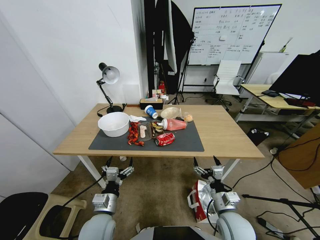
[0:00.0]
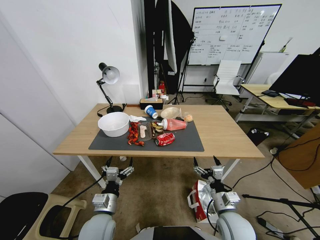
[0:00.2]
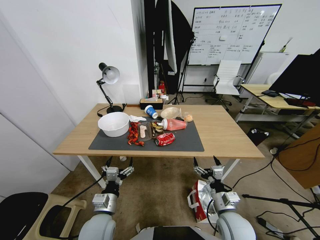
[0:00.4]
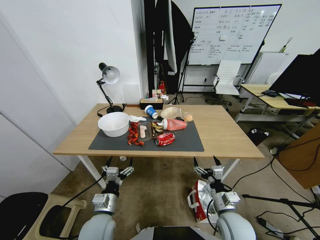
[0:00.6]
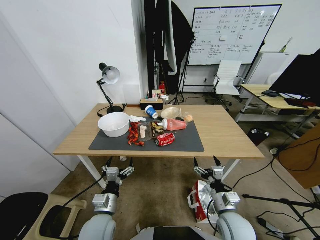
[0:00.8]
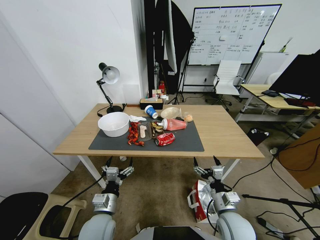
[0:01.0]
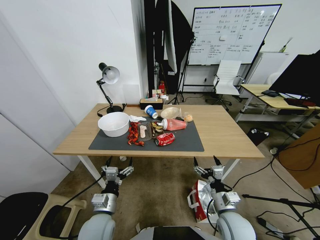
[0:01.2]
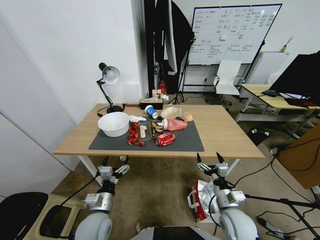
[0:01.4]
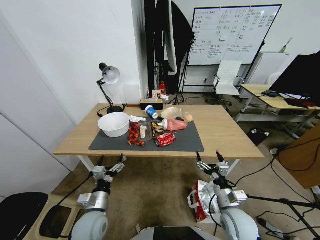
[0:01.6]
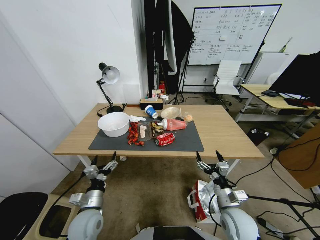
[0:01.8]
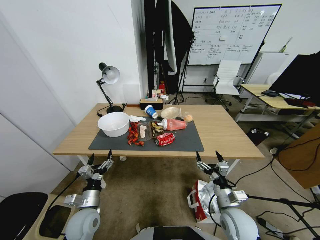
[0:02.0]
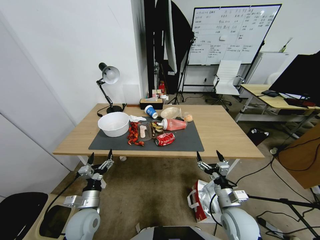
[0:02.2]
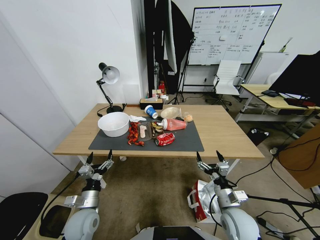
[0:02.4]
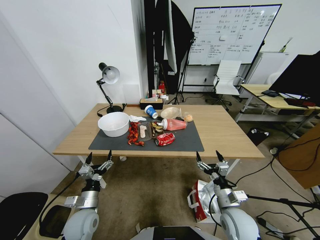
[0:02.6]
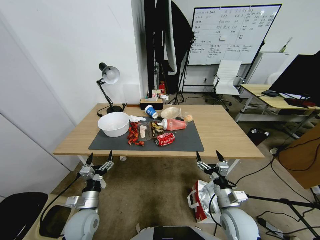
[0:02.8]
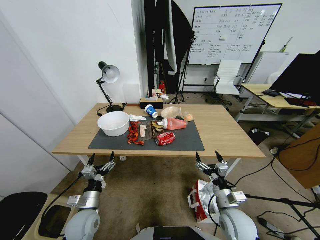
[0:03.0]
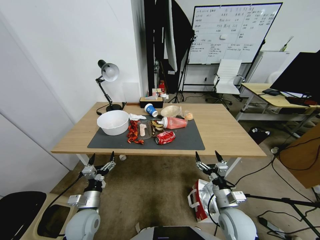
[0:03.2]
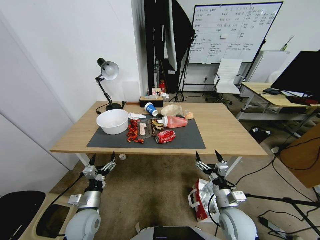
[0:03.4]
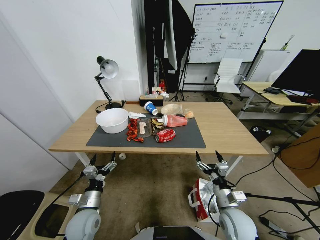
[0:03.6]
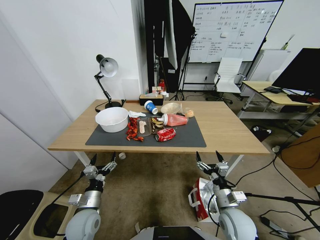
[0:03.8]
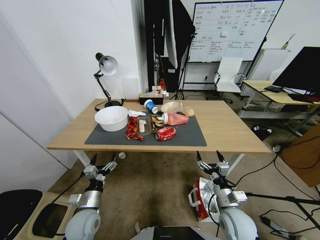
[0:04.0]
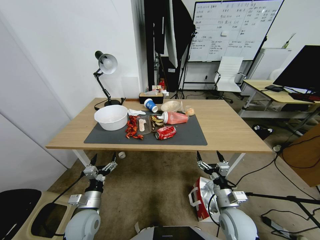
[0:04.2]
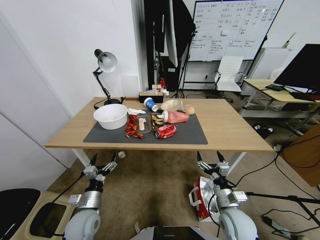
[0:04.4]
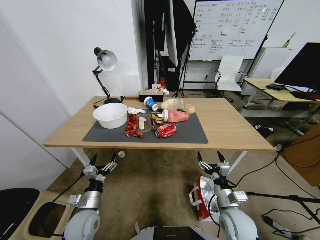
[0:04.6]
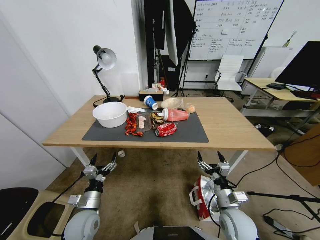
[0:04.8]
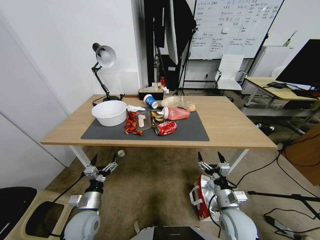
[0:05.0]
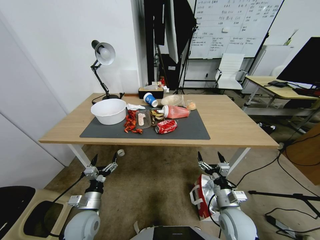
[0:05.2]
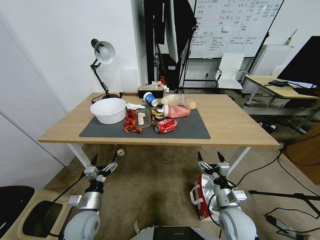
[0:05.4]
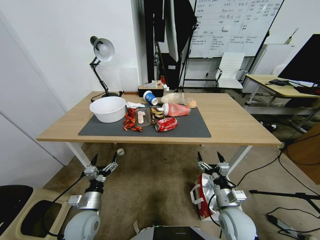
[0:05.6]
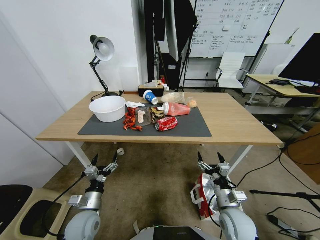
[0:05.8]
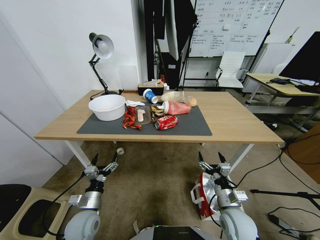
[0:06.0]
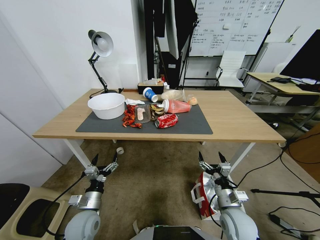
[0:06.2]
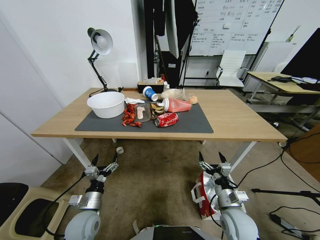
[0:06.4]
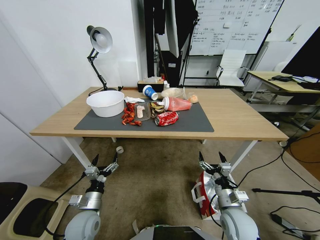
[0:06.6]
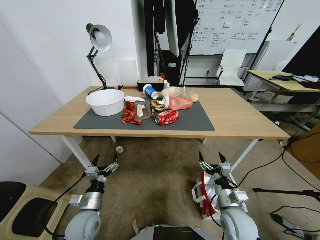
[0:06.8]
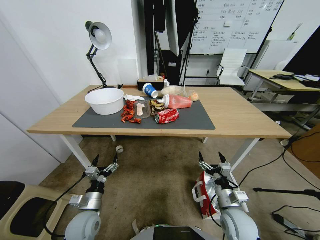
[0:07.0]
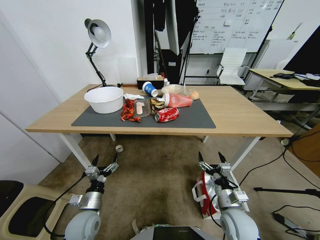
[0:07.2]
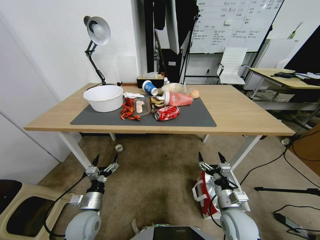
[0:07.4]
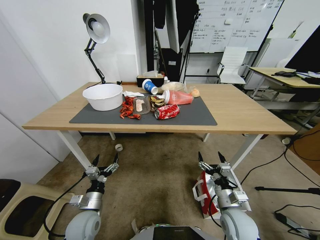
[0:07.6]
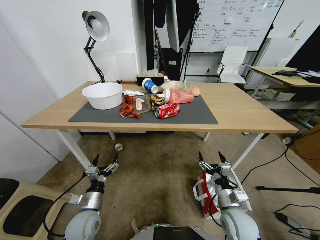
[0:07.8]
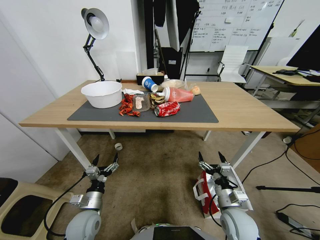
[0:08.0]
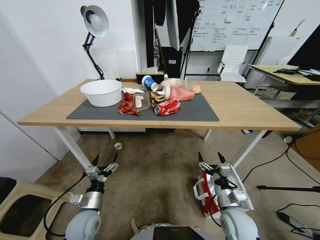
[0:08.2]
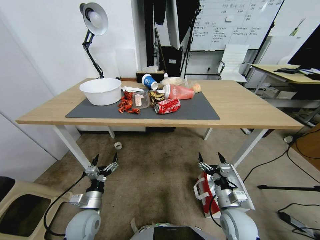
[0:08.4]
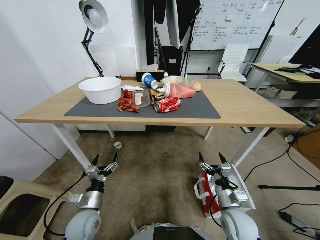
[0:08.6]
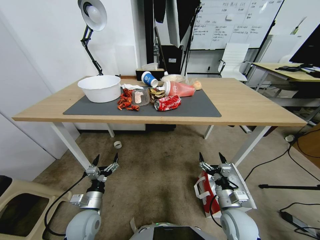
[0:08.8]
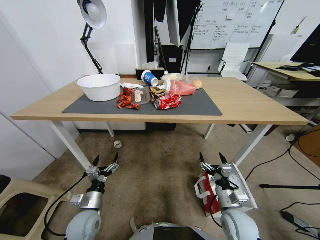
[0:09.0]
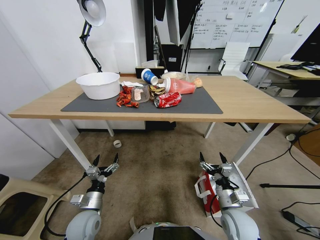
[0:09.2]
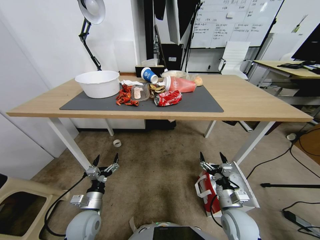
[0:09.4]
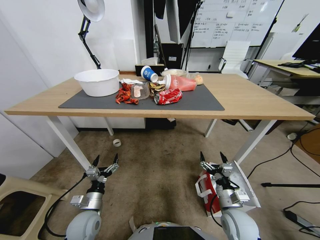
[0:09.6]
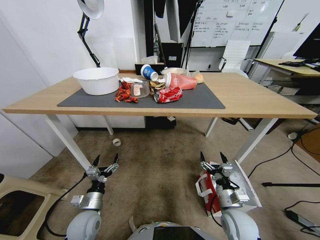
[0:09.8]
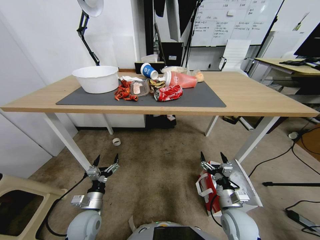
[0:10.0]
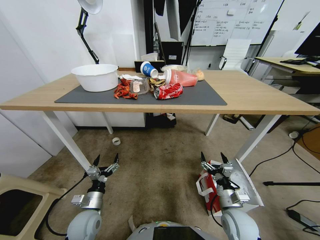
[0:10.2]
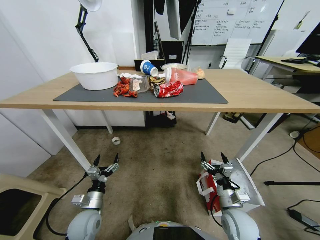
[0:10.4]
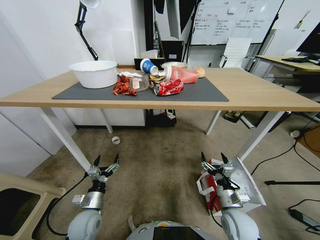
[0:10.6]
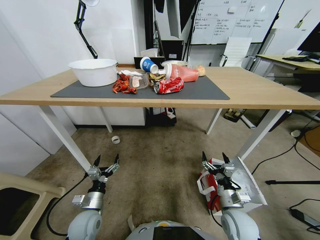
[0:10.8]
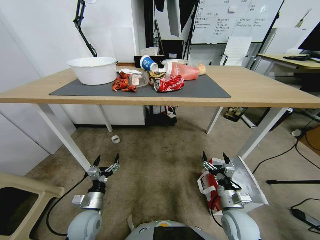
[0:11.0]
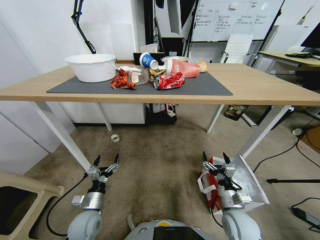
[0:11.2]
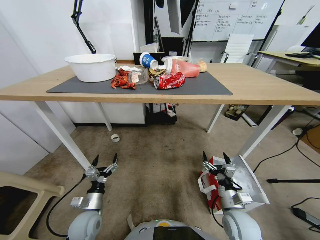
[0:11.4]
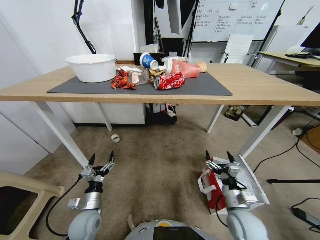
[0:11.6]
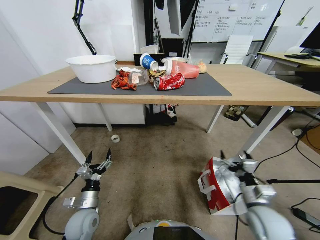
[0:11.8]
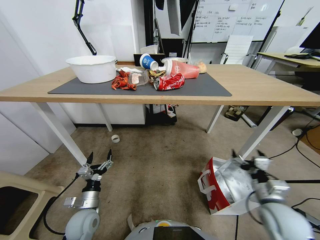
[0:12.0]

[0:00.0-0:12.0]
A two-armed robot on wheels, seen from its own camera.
Task of the whole recording: Pick up the food delivery bag from the floor and place it on the table.
0:01.6 to 0:03.0: The grippers move only a little.
0:10.4 to 0:12.0: The right gripper heads to the right and upward, covering some 15 cm.

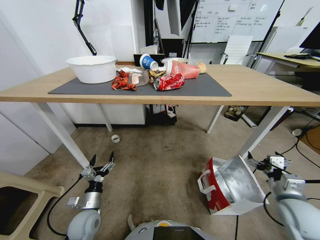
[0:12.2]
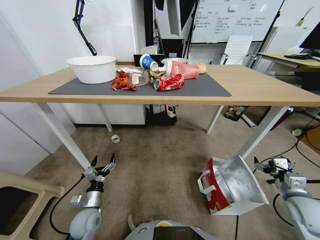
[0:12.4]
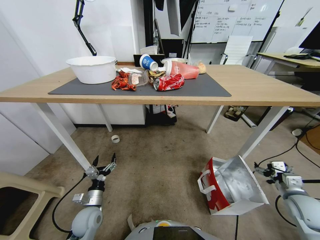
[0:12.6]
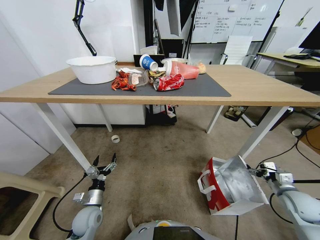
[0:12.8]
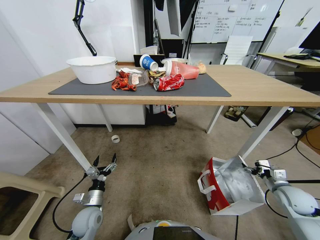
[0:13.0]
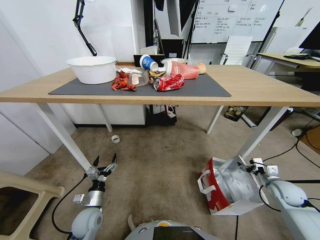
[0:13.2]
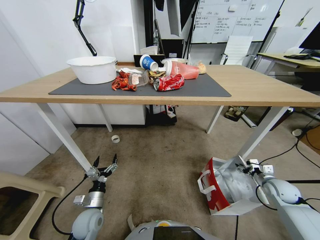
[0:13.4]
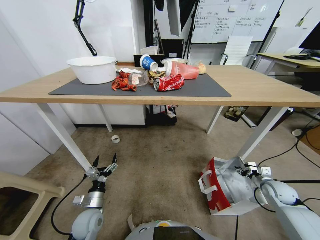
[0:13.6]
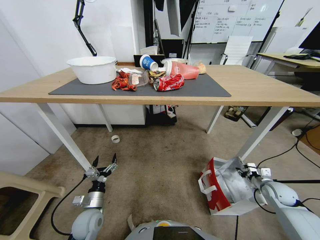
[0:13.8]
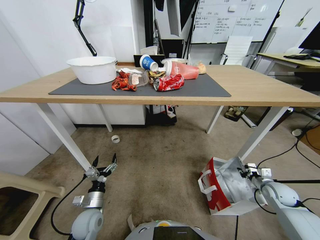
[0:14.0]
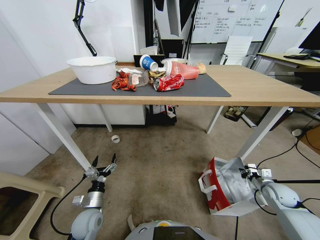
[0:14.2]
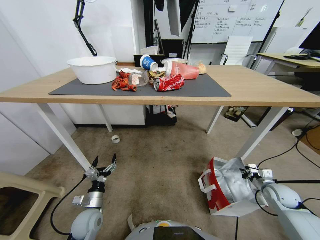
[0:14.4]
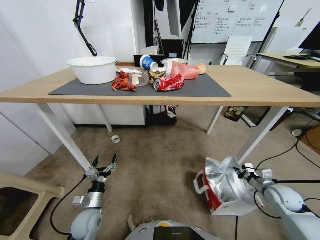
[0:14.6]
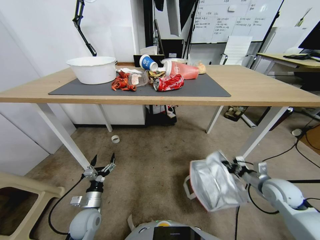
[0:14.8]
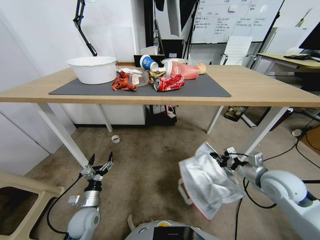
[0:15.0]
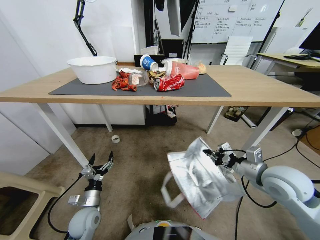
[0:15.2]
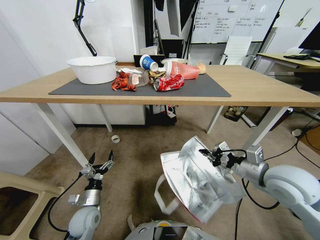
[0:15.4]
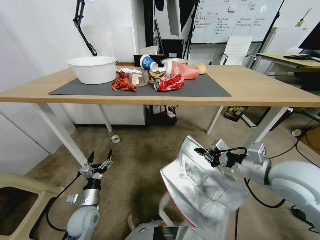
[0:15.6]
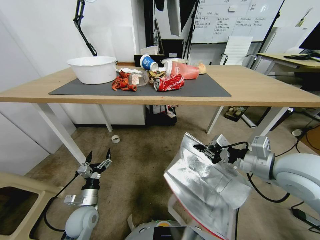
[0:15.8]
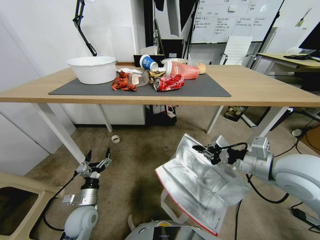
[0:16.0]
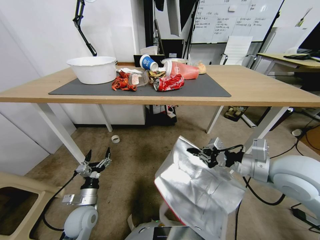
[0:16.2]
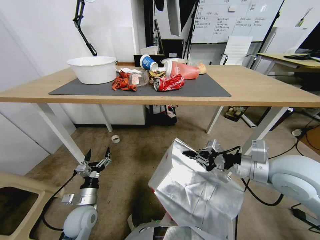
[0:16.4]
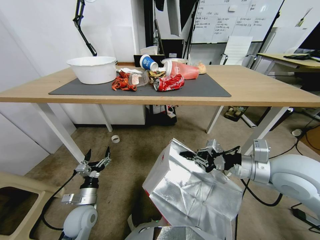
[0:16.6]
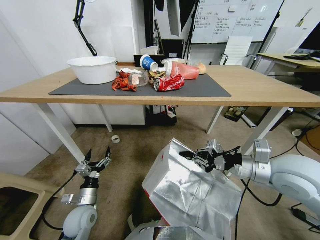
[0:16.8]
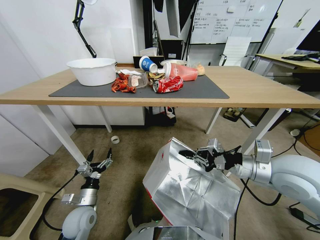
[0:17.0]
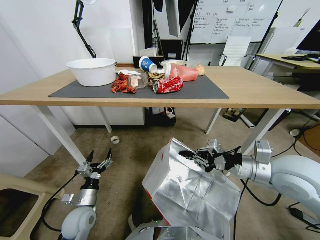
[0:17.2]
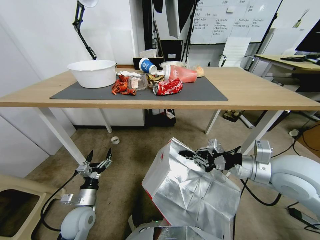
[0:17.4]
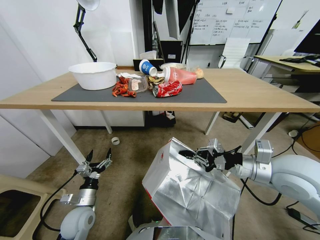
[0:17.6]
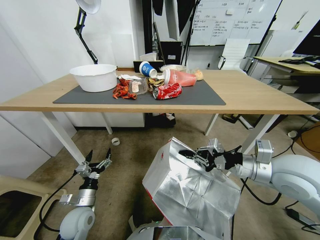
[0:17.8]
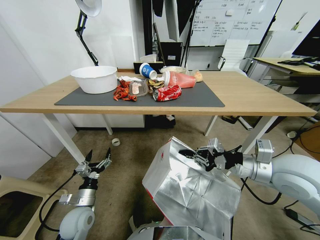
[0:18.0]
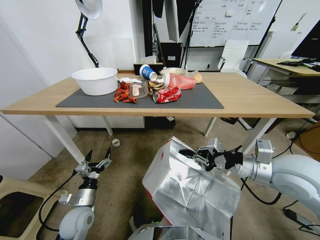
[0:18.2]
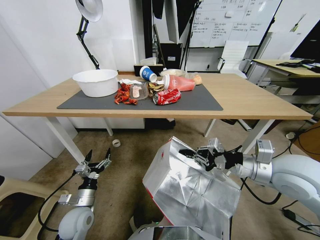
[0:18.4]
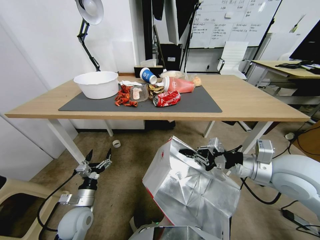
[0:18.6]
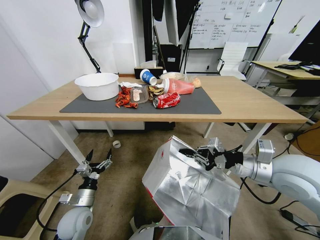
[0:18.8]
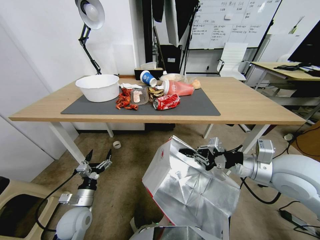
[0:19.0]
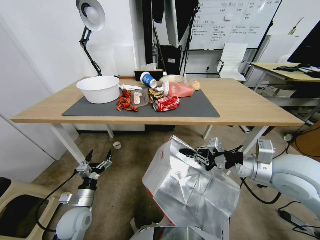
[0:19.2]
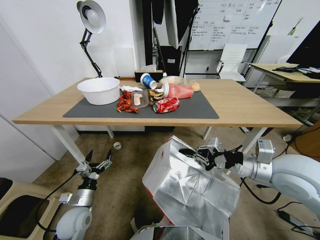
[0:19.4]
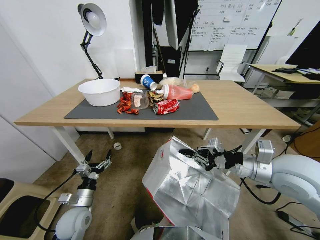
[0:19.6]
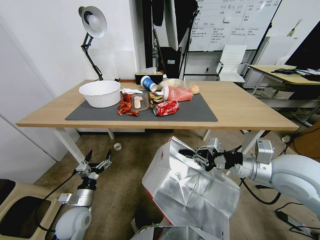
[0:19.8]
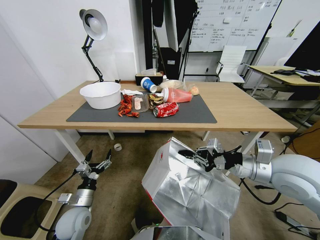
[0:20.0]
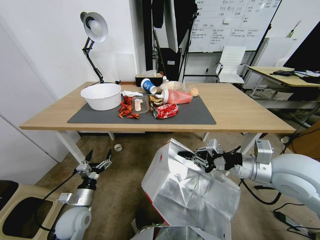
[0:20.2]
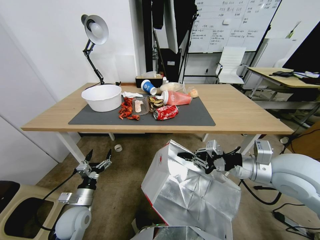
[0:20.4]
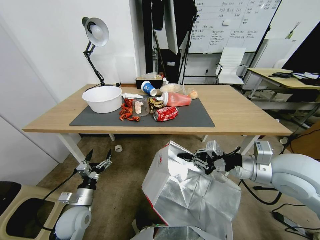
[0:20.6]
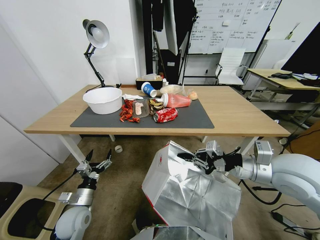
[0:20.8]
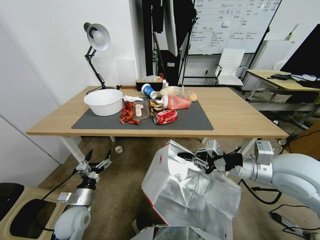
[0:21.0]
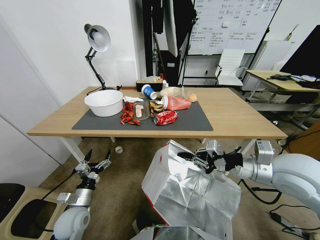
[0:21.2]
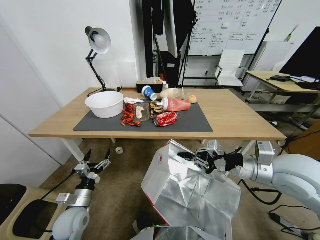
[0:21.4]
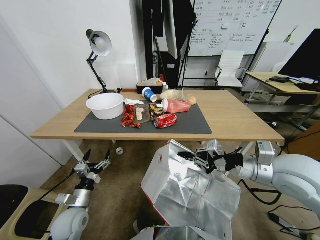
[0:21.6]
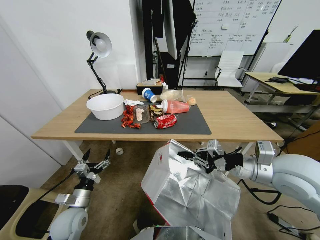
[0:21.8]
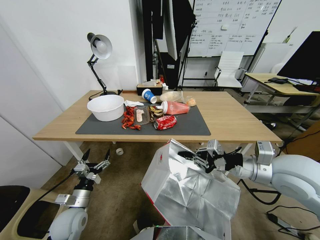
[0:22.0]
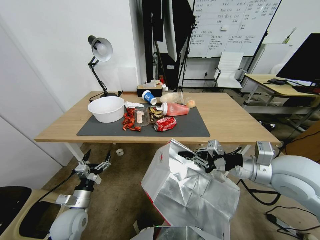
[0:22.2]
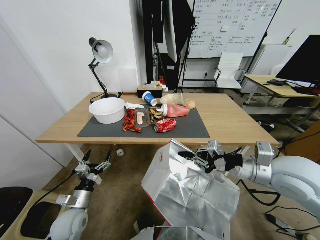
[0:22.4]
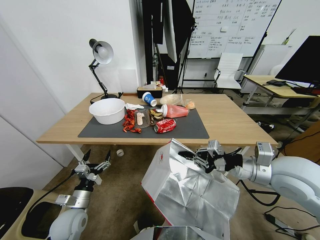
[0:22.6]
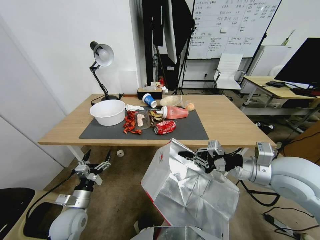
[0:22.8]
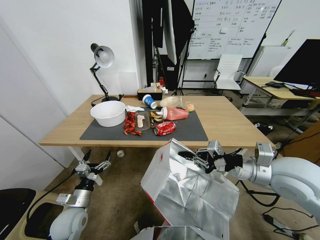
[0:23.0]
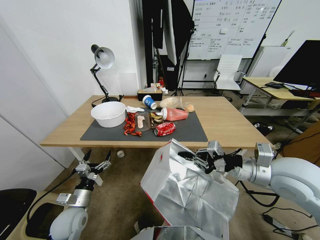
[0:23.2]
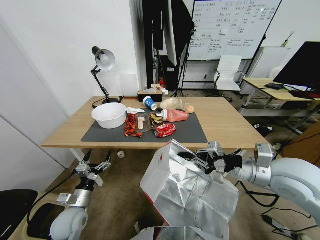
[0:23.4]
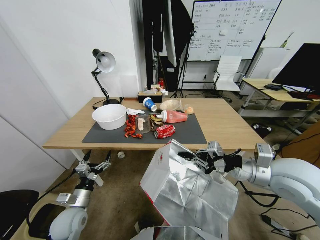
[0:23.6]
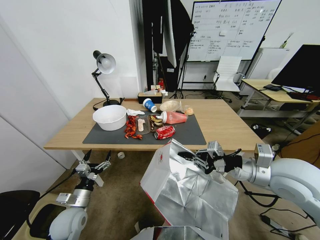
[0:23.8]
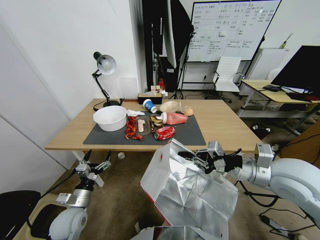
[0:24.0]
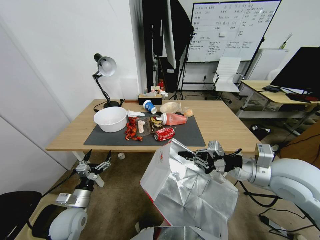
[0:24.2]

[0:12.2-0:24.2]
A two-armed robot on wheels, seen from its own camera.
Task of the whole recording: Pick up the food delivery bag from the floor and place it on the table.
0:12.2 to 0:13.8: The right gripper heads downward, forward and to the right, covering roughly 15 cm, and closes its fingers.
0:13.8 to 0:15.2: The right gripper travels upward and to the left by some 30 cm.
0:15.2 to 0:16.6: The right gripper ends up roughly 5 cm from where it was.
